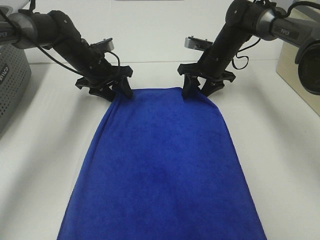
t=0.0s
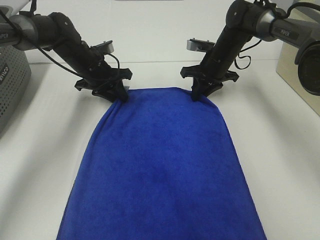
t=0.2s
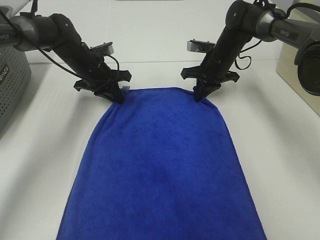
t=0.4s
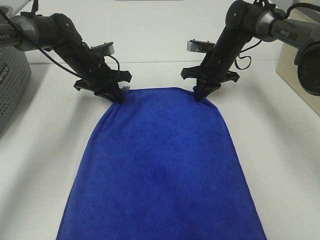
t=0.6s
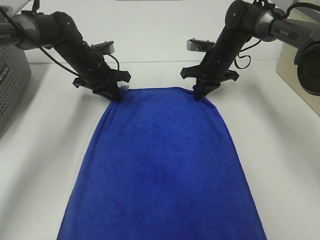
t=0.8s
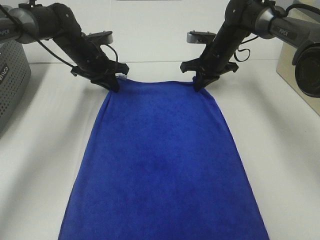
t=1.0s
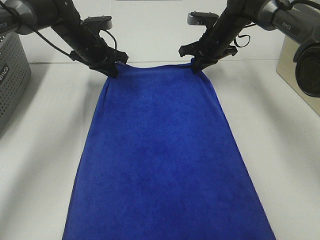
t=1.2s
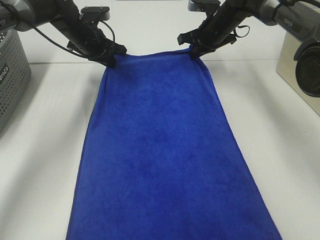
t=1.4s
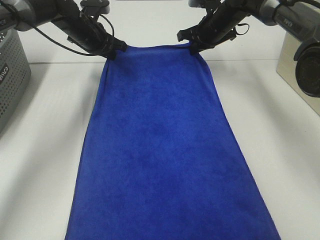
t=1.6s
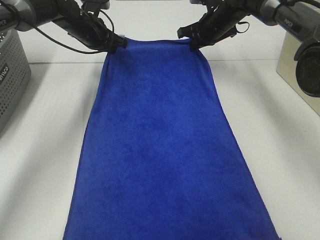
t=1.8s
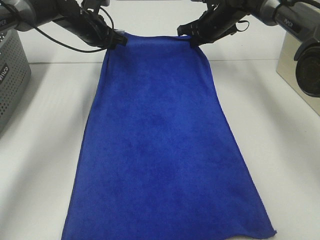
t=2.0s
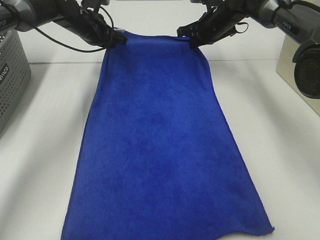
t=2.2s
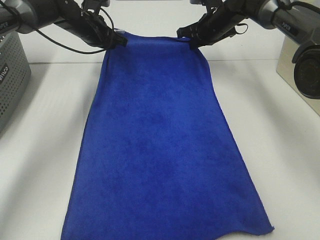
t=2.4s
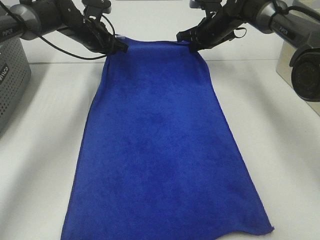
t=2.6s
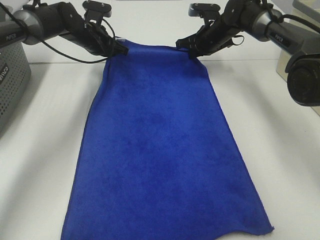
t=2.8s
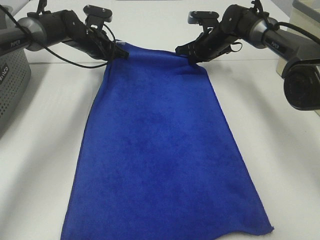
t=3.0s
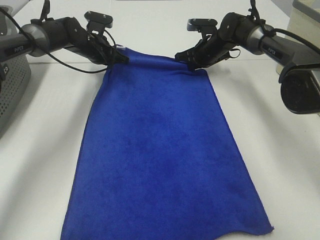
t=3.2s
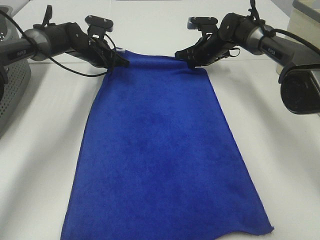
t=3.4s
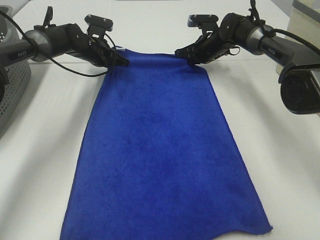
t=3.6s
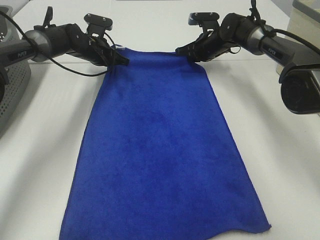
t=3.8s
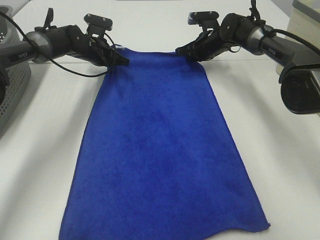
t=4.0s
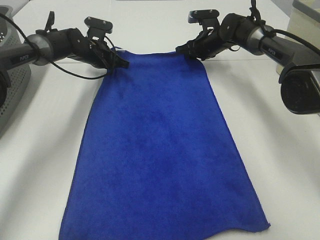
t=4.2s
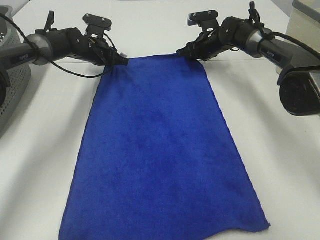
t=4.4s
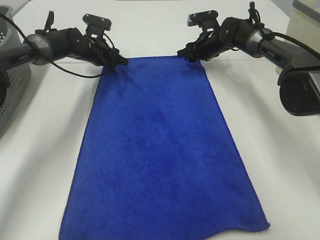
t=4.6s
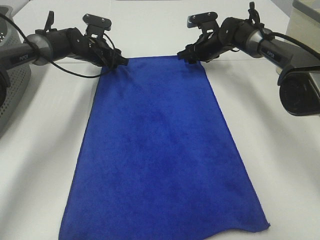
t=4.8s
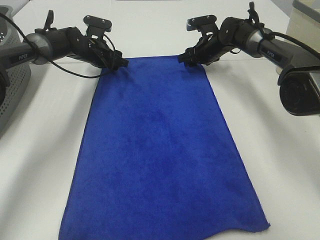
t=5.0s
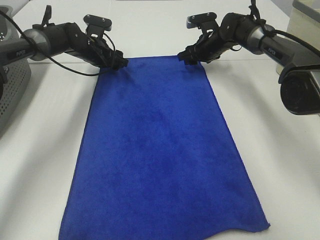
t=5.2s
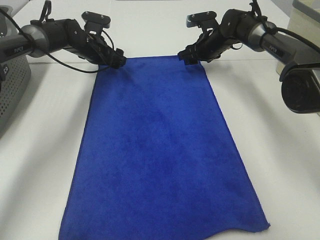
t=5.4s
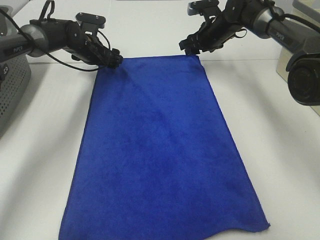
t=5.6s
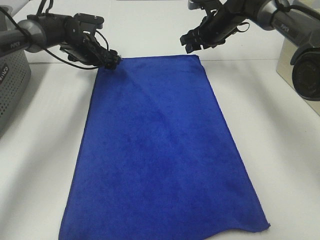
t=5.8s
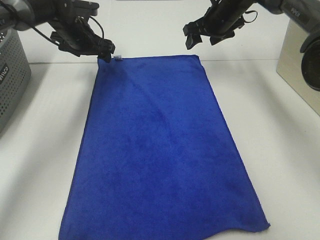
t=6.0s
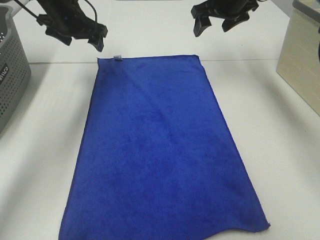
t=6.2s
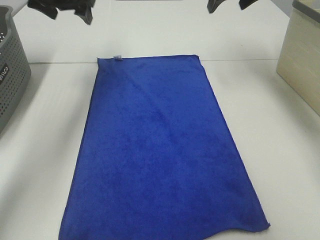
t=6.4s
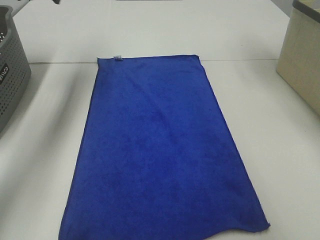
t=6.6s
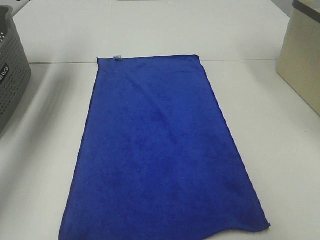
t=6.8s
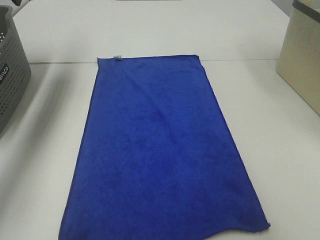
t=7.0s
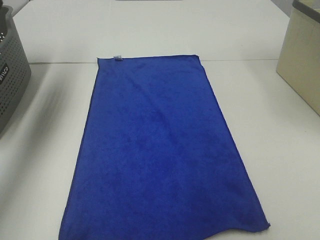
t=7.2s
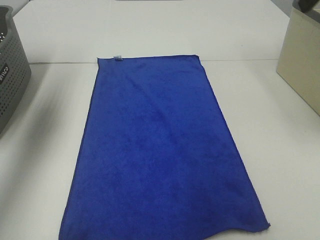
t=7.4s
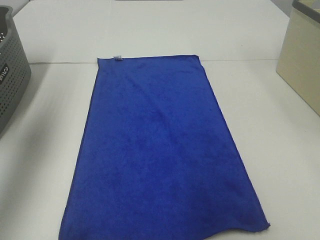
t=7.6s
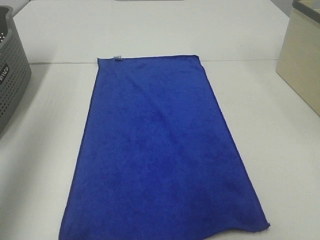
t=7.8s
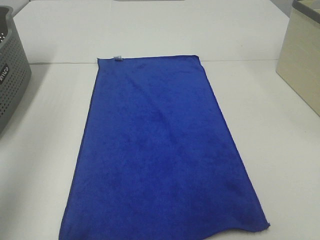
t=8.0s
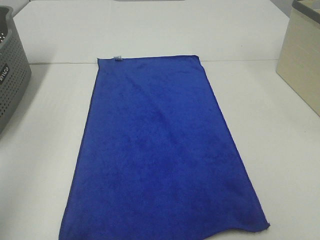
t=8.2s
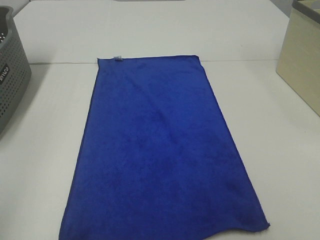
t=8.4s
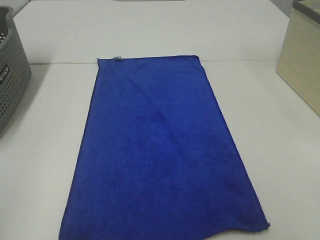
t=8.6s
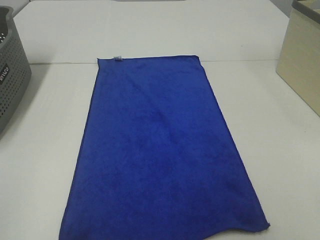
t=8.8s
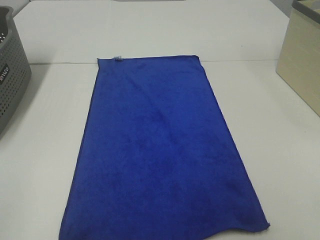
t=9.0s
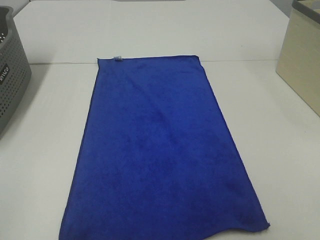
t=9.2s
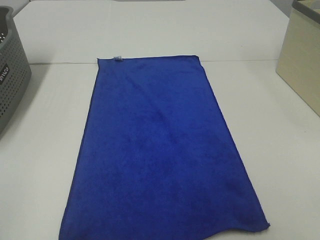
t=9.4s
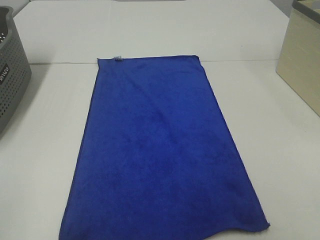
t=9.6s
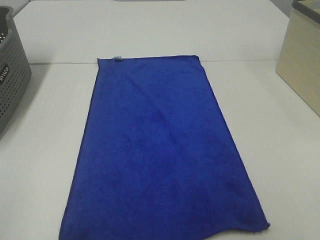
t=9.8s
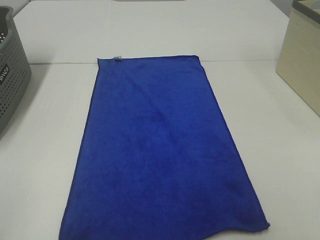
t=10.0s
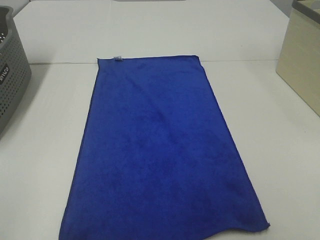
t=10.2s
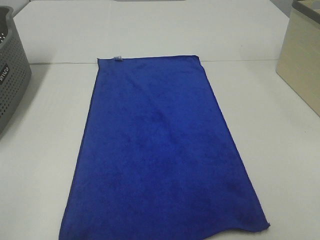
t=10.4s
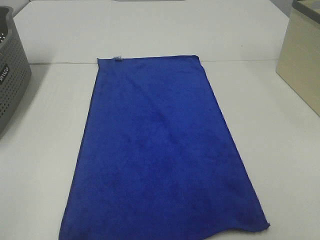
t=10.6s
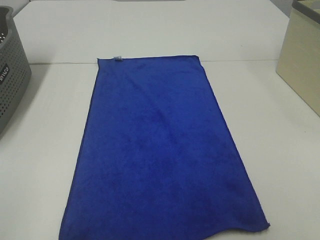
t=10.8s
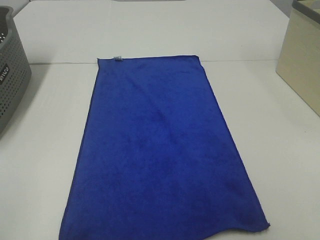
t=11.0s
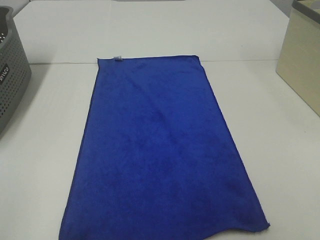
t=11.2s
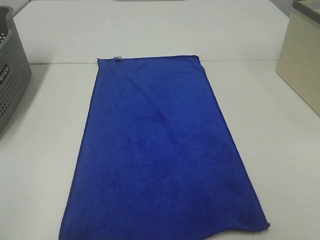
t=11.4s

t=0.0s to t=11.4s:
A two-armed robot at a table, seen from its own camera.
Task of the whole recording: Remove the towel and place it.
t=0.0s to t=1.4s: The grippers both shift upward by approximately 5 cm. The left gripper closes its fingers; the right gripper closes its fingers.
t=1.4s to t=2.8s: The grippers make only small movements.
t=2.8s to t=4.2s: The right gripper opens.
t=4.2s to t=5.6s: The left gripper opens up.
t=5.6s to t=7.2s: The right gripper travels upward, backward and to the right by some 30 cm. The left gripper goes some 30 cm upward, backward and to the left.
t=7.2s to t=8.6s: The left gripper goes about 40 cm backward.
t=10.0s to t=11.4s: Both grippers stay put.

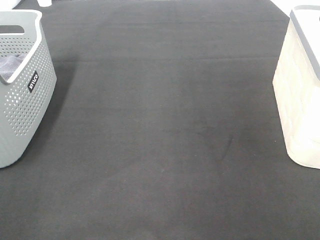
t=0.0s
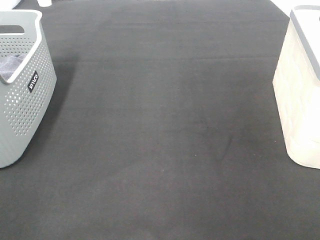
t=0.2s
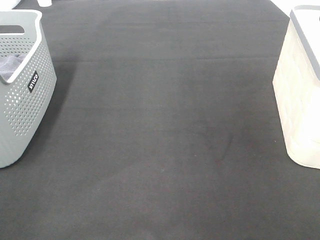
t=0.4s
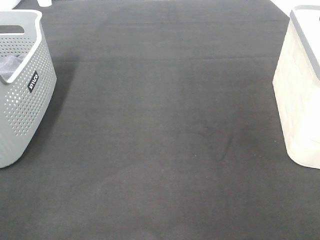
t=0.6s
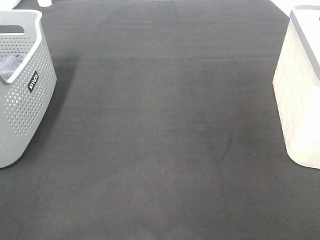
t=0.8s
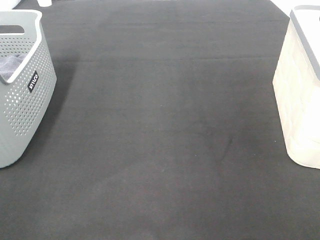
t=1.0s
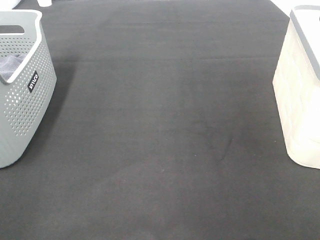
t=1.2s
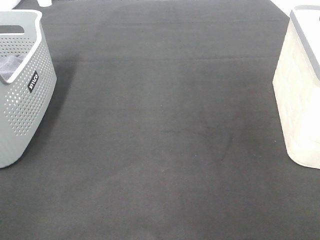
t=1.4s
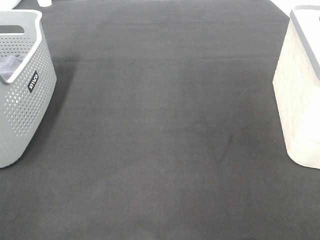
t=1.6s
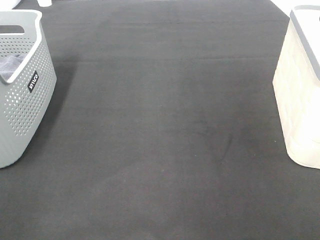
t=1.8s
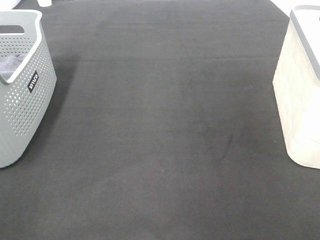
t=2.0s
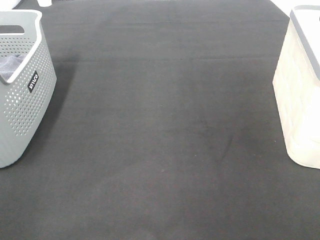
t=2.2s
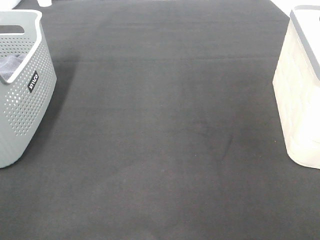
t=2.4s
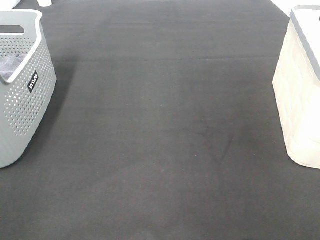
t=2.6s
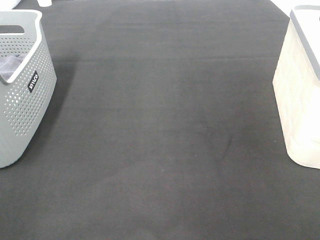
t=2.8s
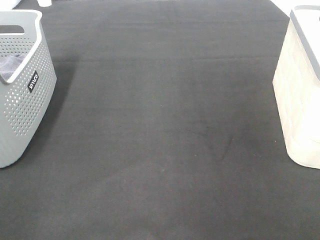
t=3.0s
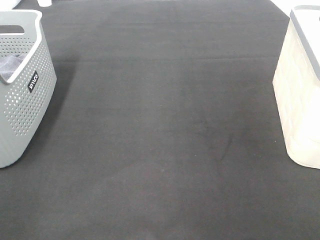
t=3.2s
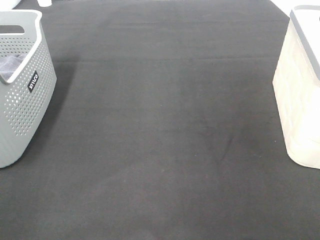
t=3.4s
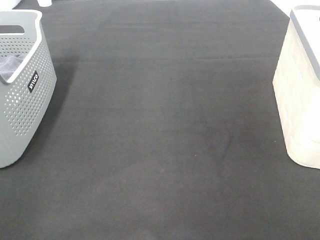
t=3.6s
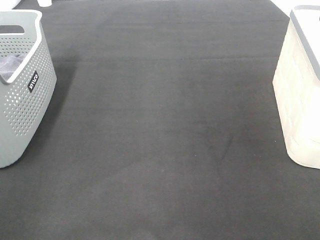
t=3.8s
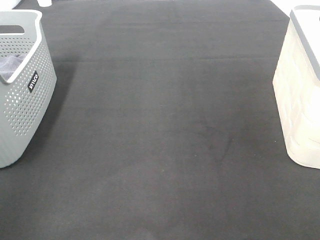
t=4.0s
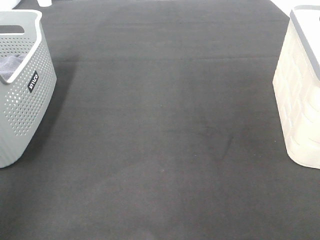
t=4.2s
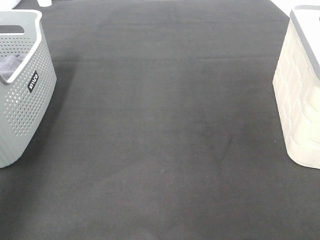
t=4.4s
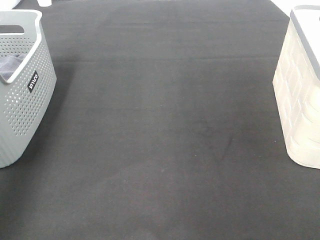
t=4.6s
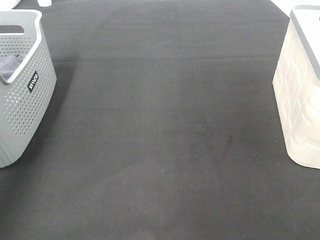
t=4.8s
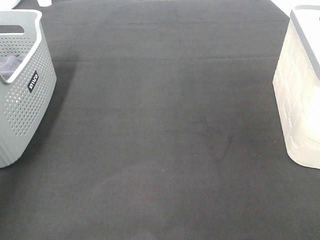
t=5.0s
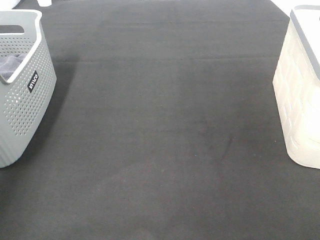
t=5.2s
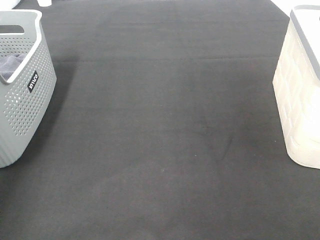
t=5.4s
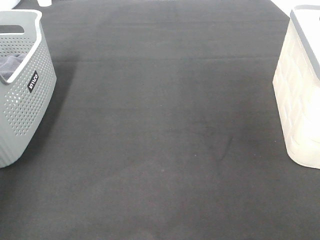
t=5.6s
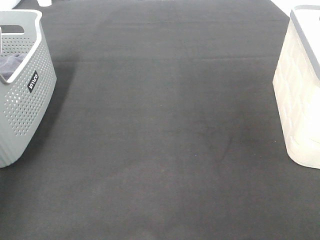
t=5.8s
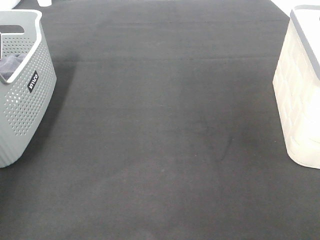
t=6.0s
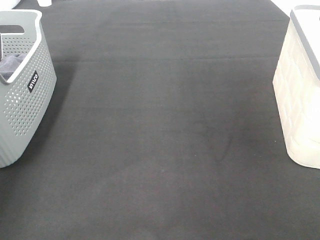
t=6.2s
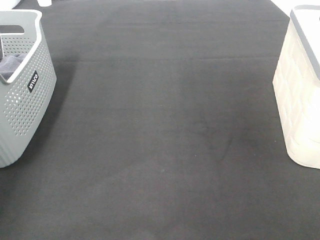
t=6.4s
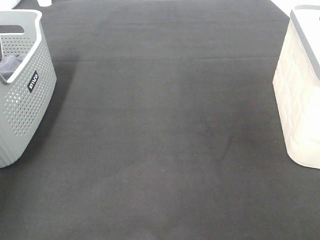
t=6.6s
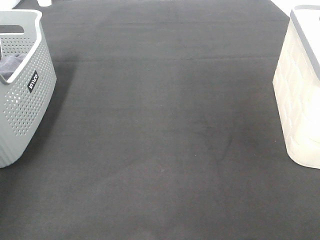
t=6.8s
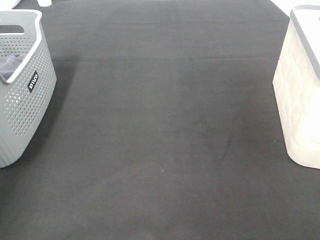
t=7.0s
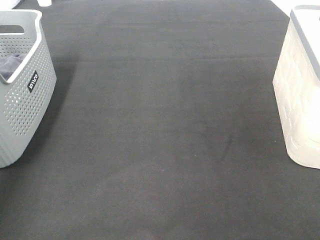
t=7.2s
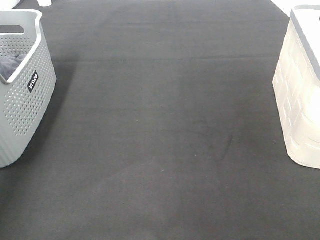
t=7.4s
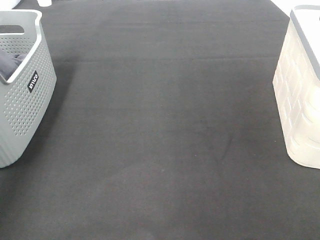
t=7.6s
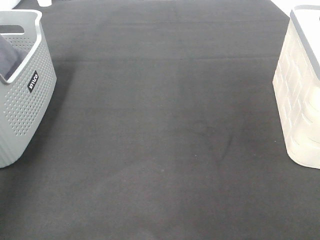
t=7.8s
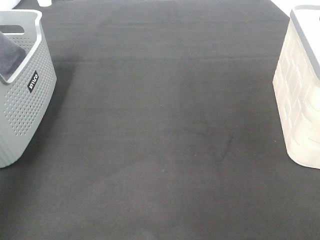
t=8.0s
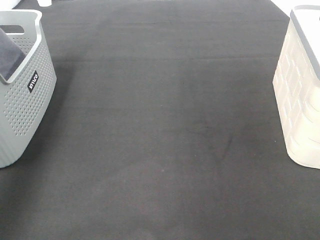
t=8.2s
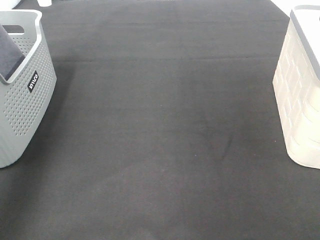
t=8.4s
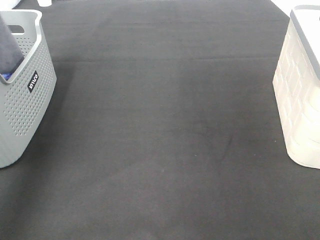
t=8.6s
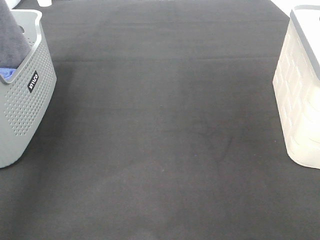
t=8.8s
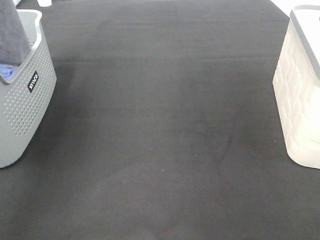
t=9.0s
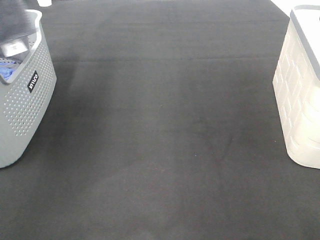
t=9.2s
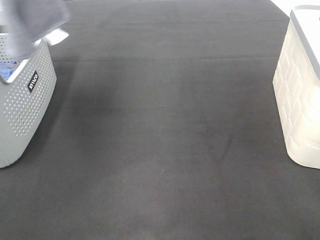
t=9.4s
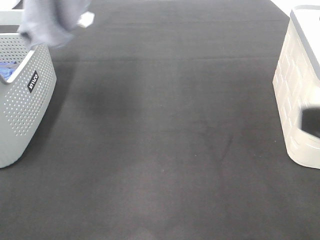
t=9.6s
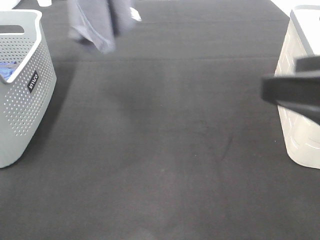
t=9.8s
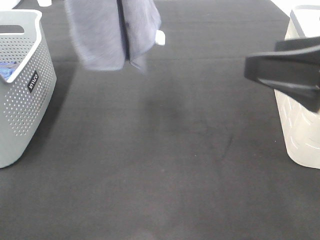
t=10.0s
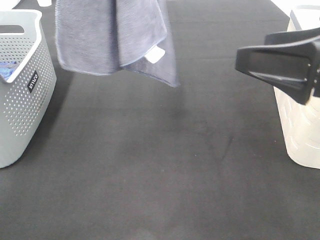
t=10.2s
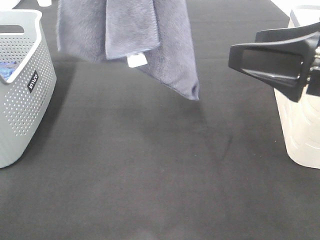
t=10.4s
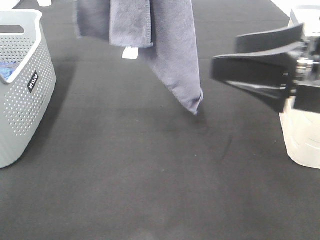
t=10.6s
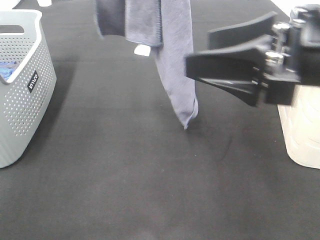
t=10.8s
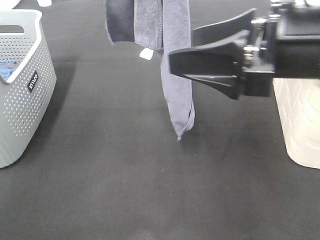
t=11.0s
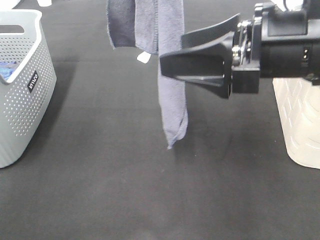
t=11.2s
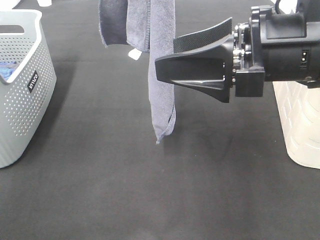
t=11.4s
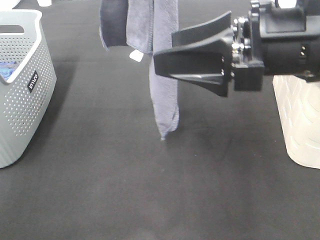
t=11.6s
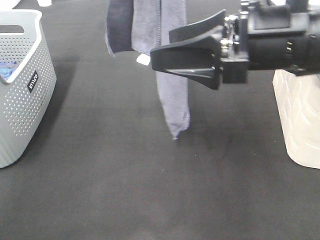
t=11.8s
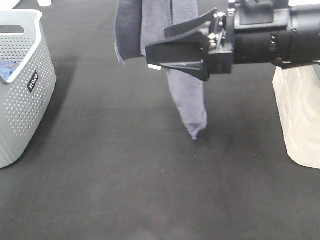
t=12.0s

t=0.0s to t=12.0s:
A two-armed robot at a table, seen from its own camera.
Task of the whole recording: Remove the towel and place it.
t=0.0s to t=3.0s: Both grippers stay put.
t=3.0s to t=4.4s: The left gripper moves forward and upward, approximately 25 cm.
t=6.0s to t=7.6s: The left gripper moves upward, approximately 20 cm, and closes up.
t=7.6s to t=9.0s: The left gripper moves upward, to the right and backward, some 20 cm.
t=9.0s to t=10.4s: The left gripper moves to the right, approximately 20 cm. Meanwhile the right gripper is displaced forward by approximately 15 cm.
t=10.4s to t=12.0s: The right gripper travels to the left and forward by approximately 10 cm.
